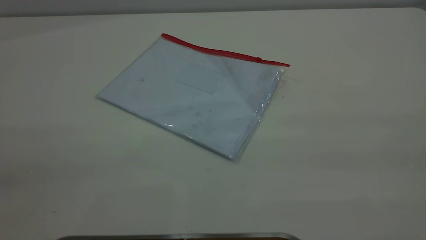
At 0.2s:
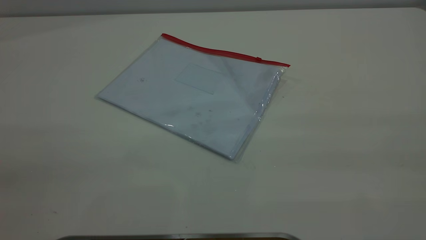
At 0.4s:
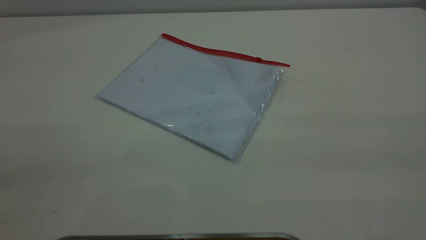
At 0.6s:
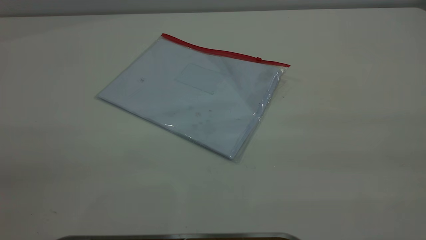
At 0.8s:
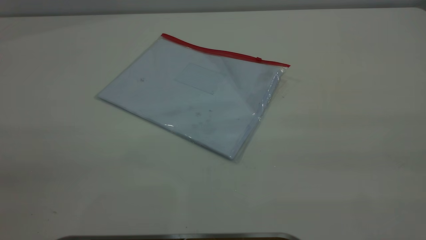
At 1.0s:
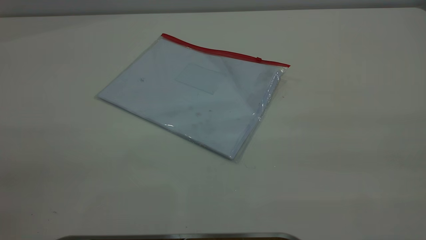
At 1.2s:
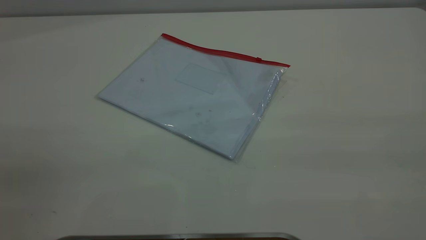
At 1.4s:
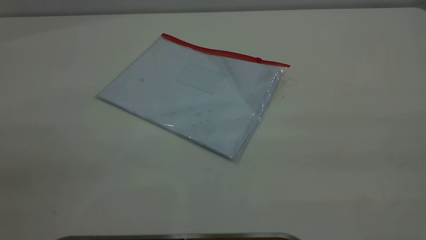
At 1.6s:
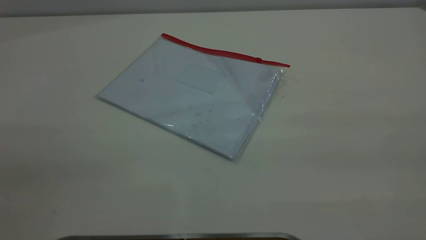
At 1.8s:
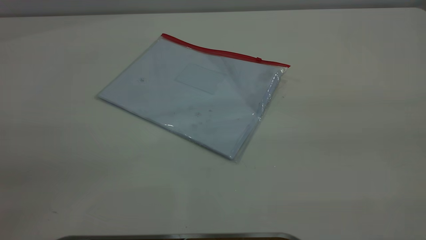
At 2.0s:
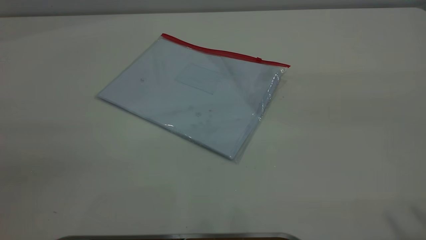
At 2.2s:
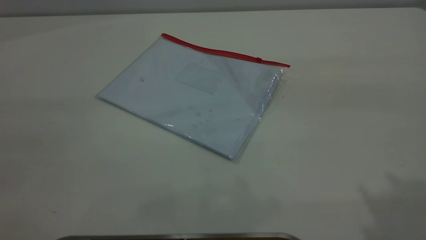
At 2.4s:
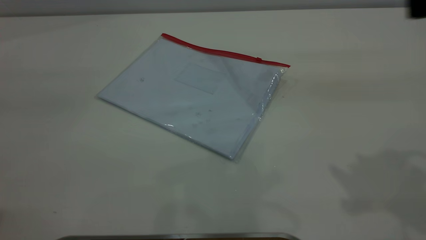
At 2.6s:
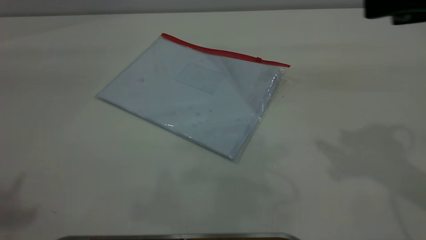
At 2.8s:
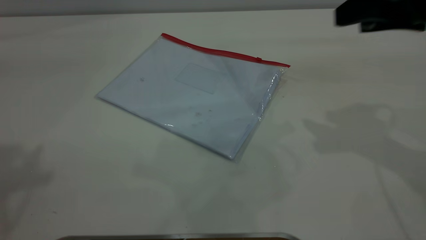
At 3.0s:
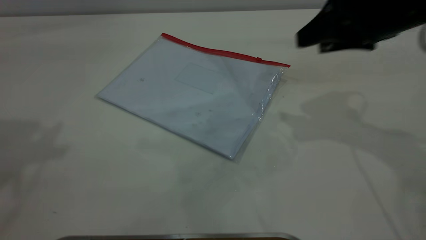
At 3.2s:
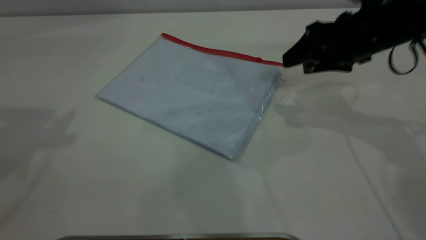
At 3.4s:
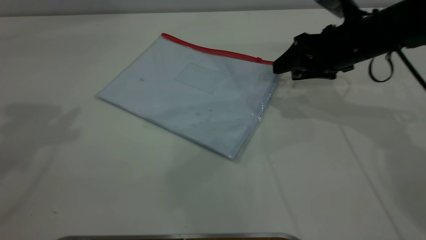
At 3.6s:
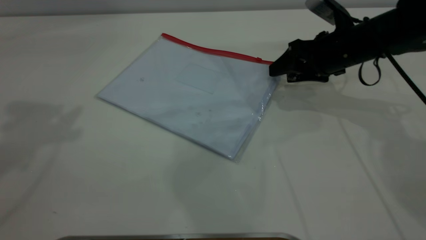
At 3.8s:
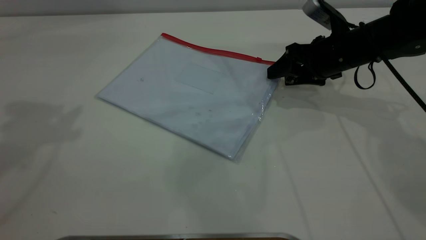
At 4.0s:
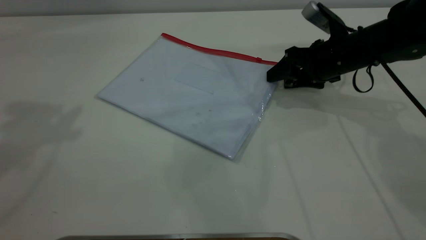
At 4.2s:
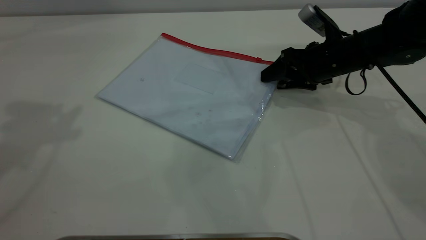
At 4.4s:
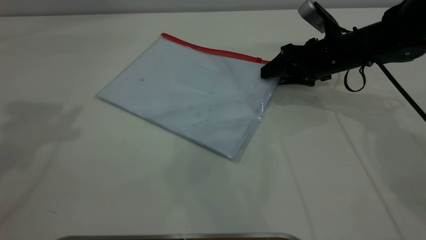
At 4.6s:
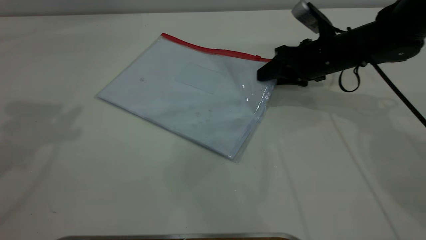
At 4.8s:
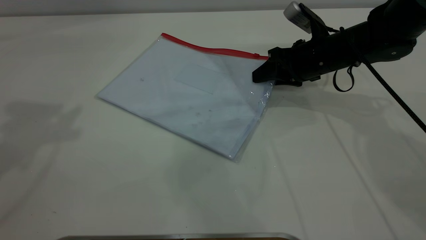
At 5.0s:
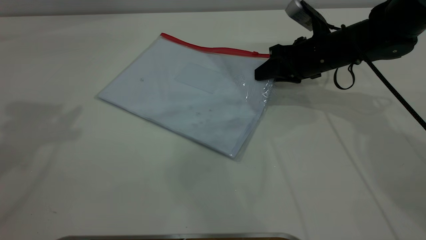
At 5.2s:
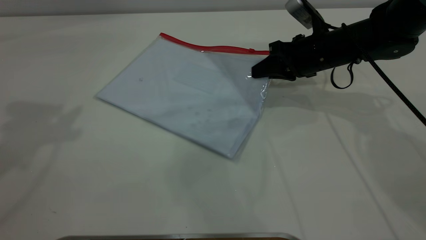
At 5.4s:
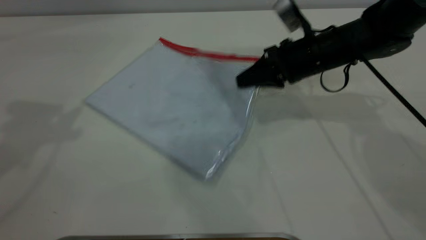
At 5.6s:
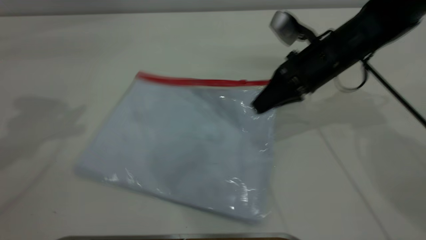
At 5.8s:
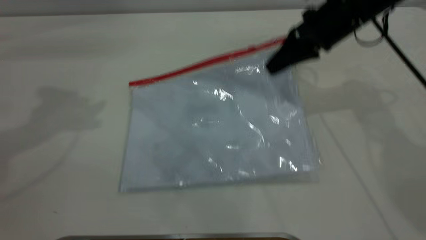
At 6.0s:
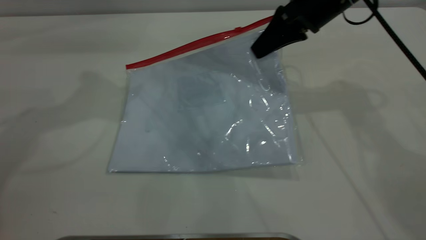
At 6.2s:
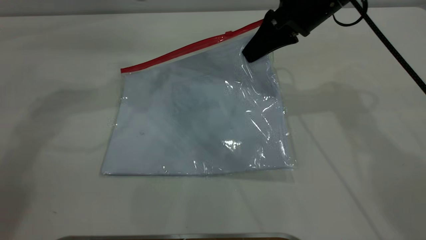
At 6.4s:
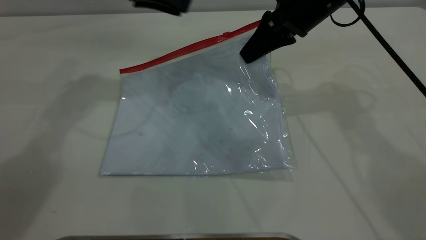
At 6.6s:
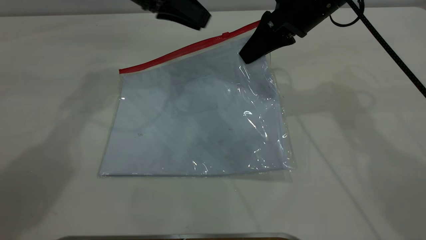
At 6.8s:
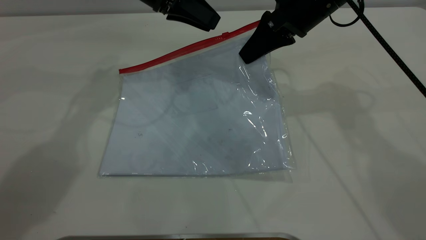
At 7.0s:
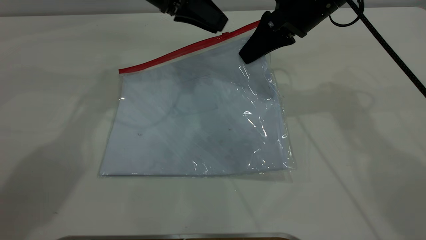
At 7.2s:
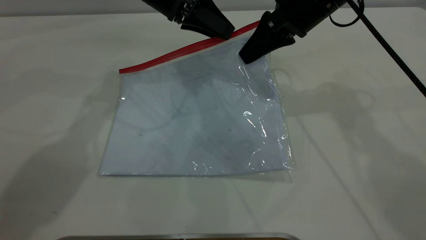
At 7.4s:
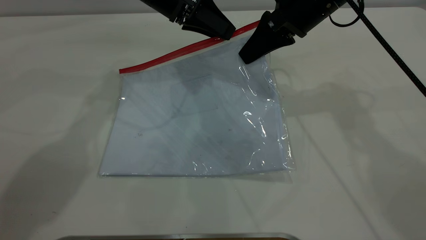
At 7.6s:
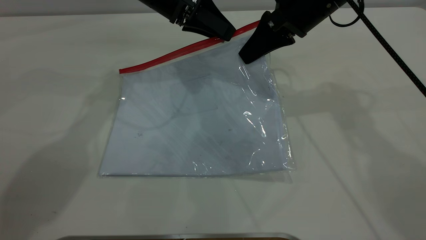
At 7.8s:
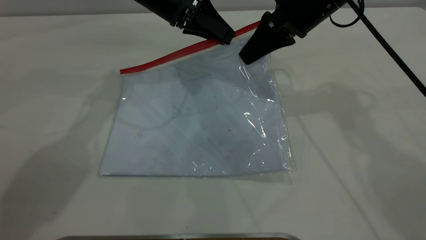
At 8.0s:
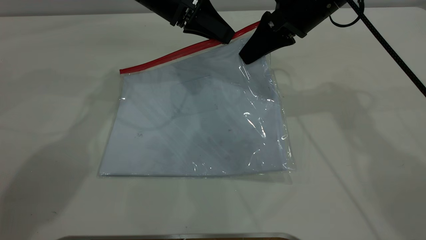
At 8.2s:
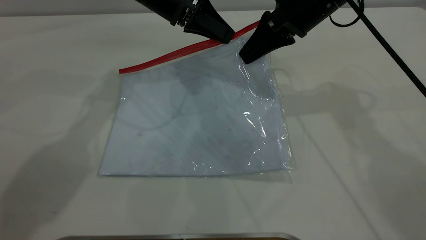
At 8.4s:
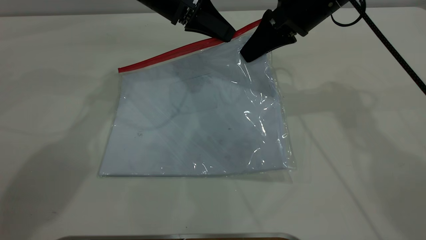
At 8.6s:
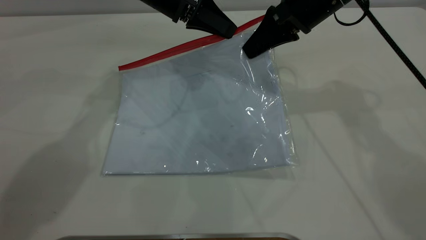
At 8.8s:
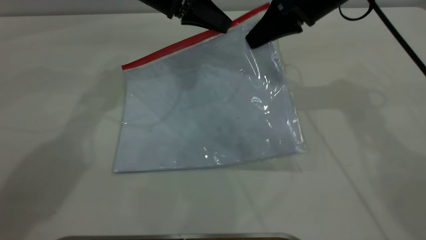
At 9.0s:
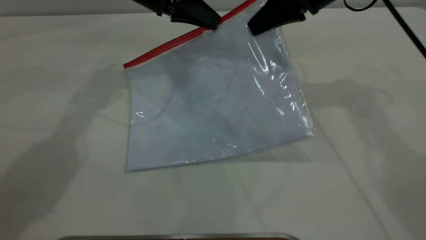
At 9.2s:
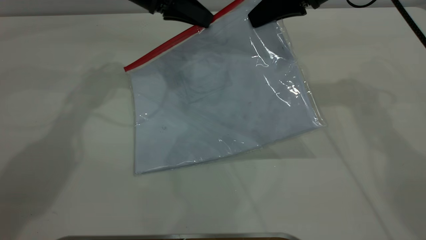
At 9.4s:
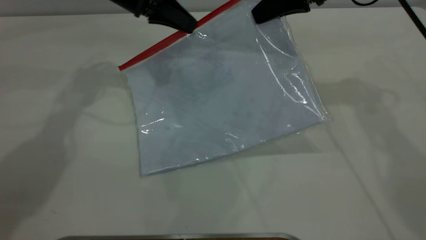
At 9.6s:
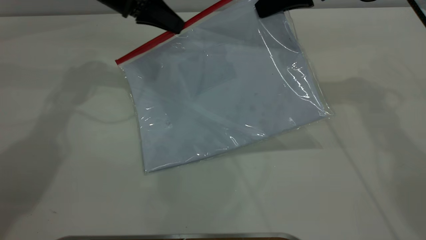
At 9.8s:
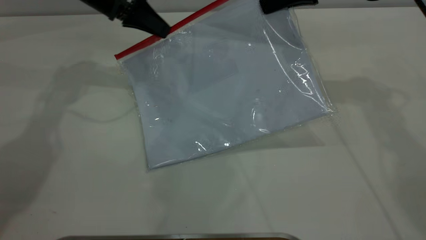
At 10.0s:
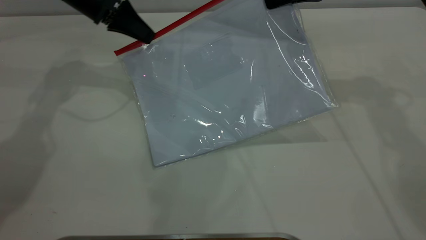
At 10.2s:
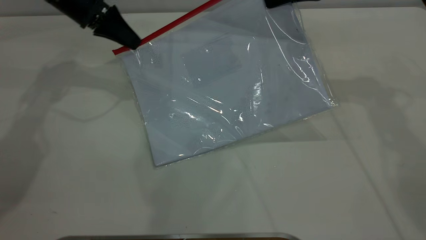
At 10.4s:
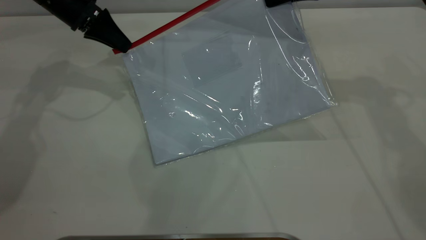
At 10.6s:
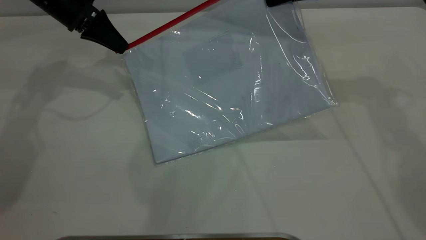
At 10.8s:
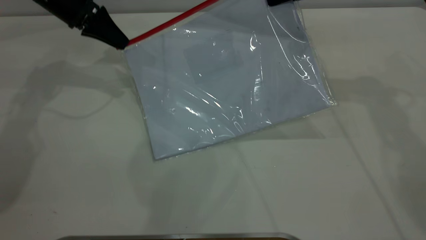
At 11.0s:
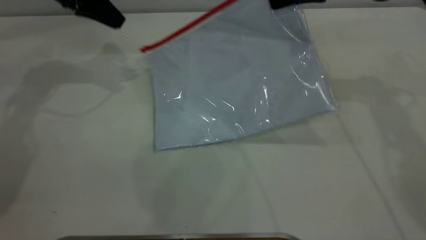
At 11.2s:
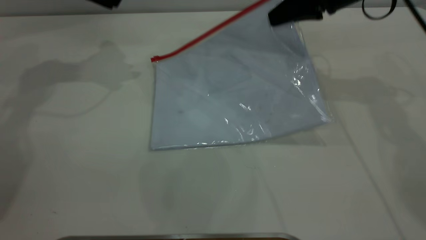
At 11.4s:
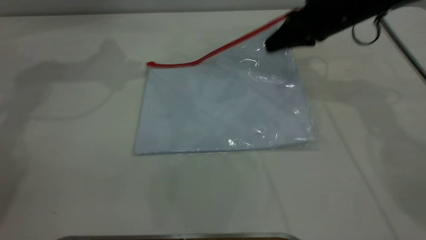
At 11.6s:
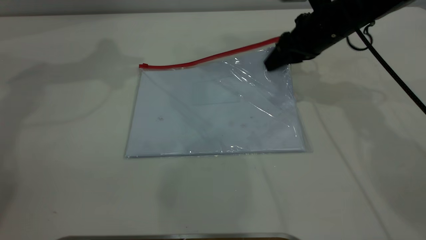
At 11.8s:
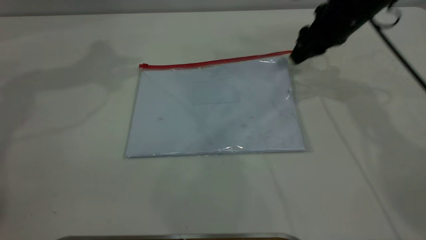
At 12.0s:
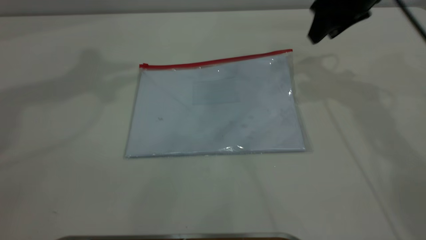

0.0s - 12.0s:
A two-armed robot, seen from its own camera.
Step, 0.0s - 6.2s: Pick up the transparent plastic bag with the right gripper.
Step, 6.4s - 11.0s: Pulling up the zipper on the transparent plastic bag with the left gripper to close it.
1.6s - 3.0s: The right gripper heads forward and downward, covering approximately 40 cm, and opens.
3.0s - 4.4s: The right gripper is displaced downward and forward by about 15 cm.
4.4s - 6.0s: The left gripper moves downward, forward and to the right, approximately 15 cm. Meanwhile the right gripper travels upward by approximately 10 cm, and closes up.
6.0s - 7.6s: The left gripper travels to the right, downward and forward by some 20 cm.
7.6s - 9.0s: The left gripper closes up.
9.0s - 10.4s: The left gripper is displaced to the left by some 15 cm.
10.4s - 12.0s: The left gripper heads upward, covering roughly 35 cm, and opens up, while the right gripper travels downward and back again, about 10 cm each way, and opens.

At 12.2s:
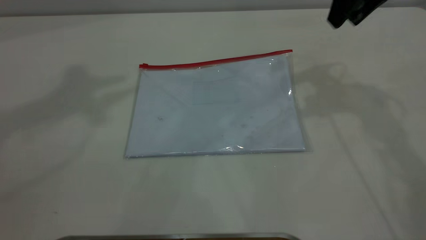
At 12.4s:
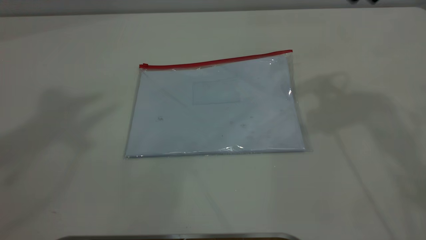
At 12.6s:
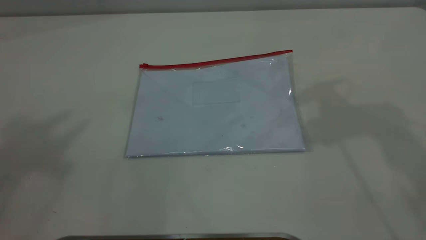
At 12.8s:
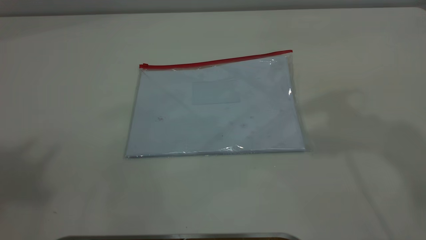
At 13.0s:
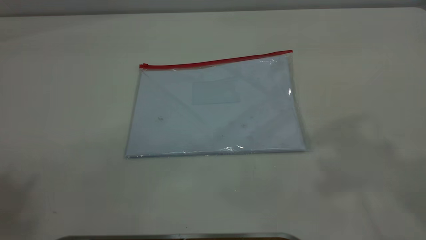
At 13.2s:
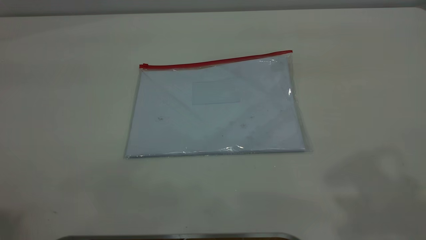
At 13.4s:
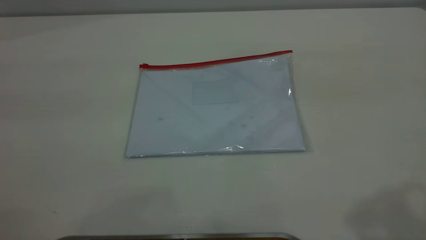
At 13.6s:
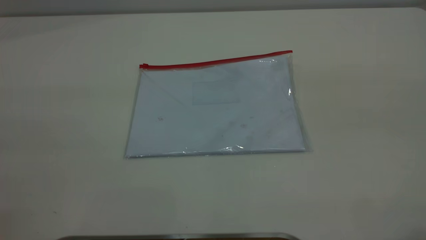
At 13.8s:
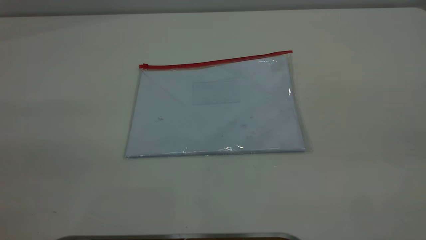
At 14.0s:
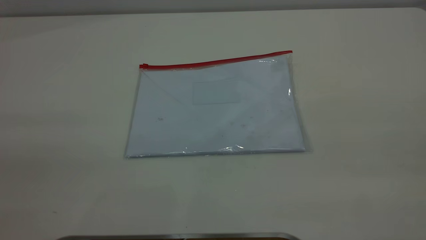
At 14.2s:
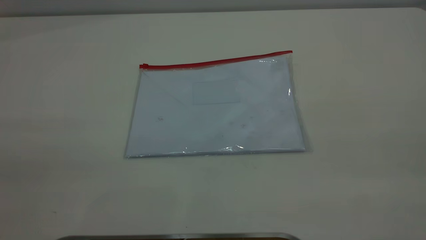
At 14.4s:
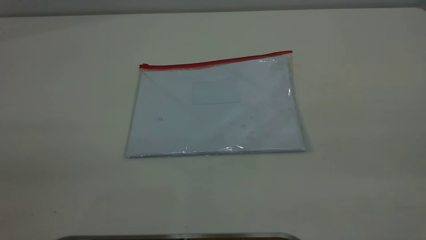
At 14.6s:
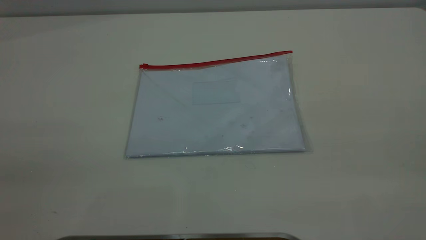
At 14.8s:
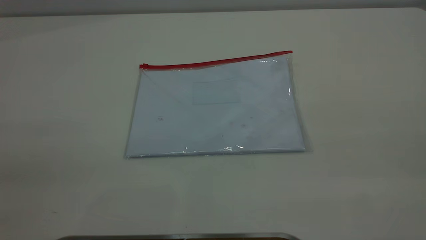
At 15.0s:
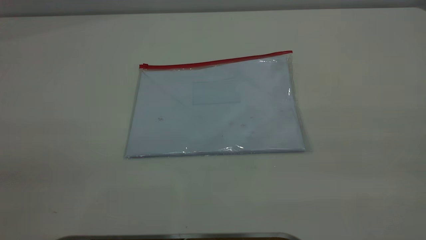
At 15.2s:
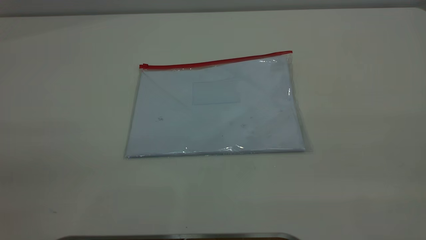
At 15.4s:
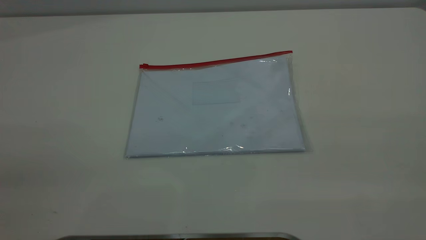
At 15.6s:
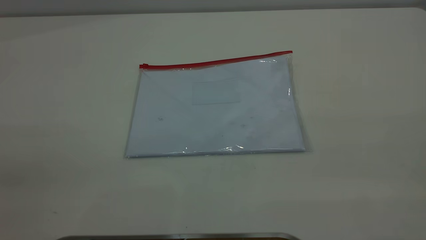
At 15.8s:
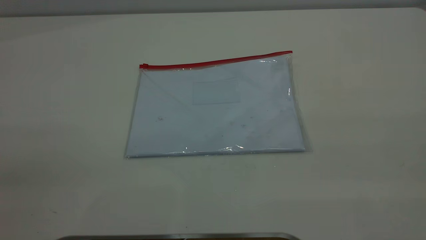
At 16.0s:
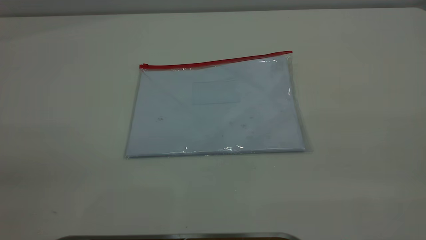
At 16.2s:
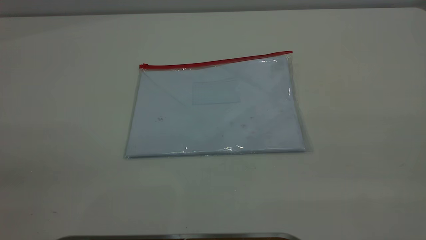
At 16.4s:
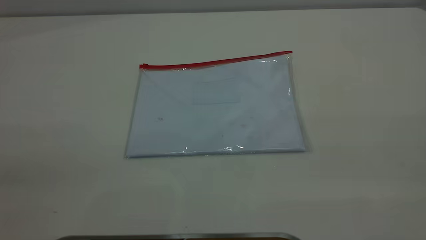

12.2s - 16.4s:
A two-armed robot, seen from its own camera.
12.2s - 13.6s: The right gripper goes about 35 cm backward and upward.
15.0s - 16.4s: Both grippers stay put.
